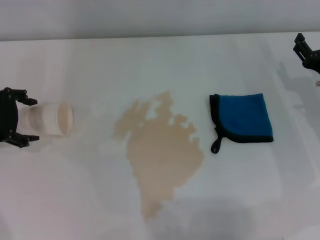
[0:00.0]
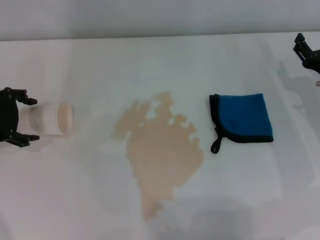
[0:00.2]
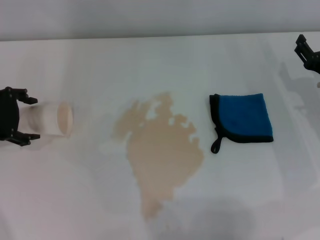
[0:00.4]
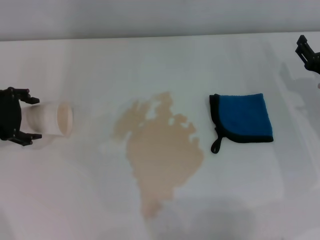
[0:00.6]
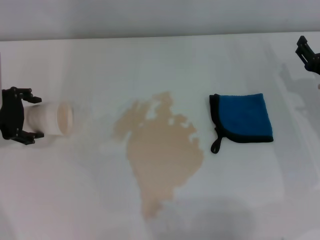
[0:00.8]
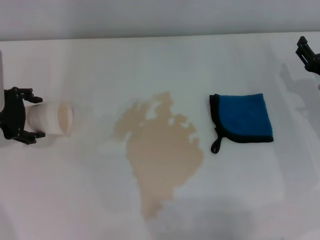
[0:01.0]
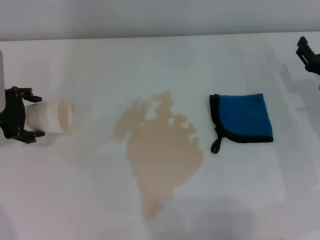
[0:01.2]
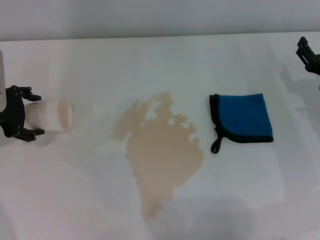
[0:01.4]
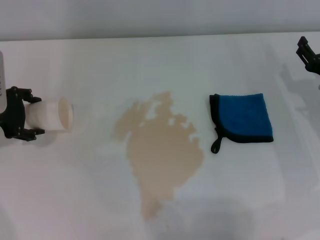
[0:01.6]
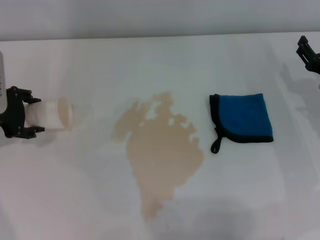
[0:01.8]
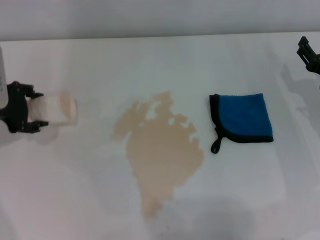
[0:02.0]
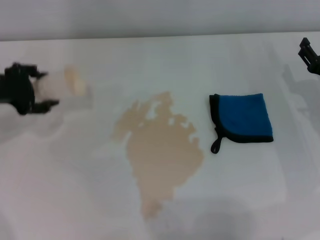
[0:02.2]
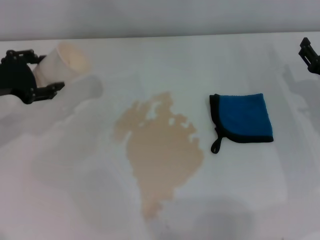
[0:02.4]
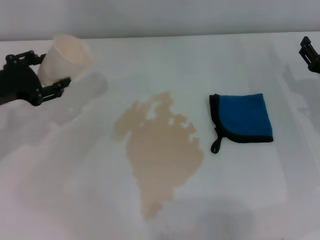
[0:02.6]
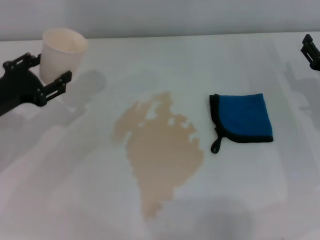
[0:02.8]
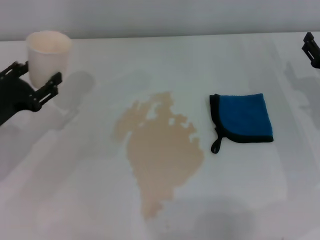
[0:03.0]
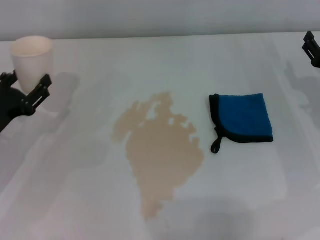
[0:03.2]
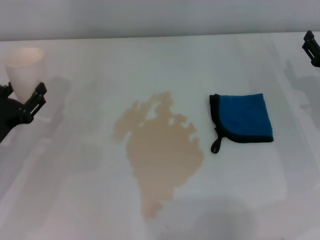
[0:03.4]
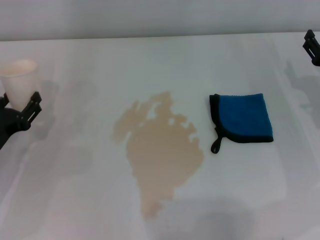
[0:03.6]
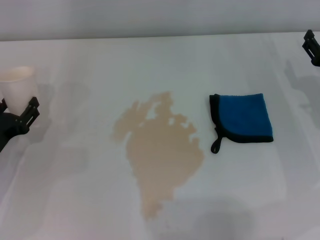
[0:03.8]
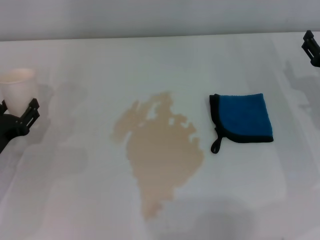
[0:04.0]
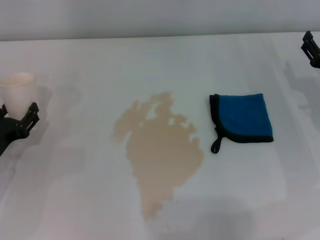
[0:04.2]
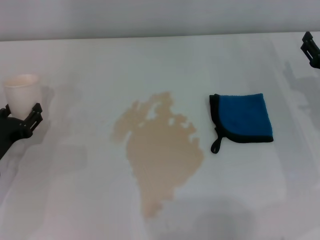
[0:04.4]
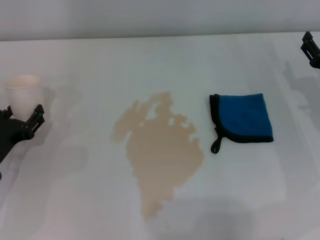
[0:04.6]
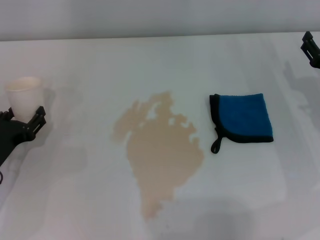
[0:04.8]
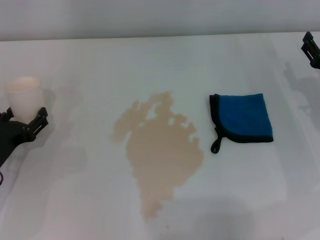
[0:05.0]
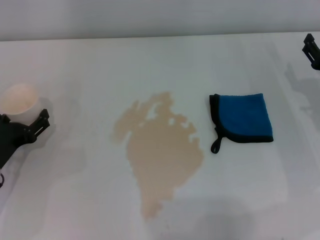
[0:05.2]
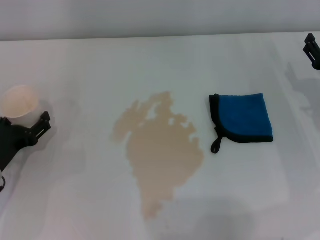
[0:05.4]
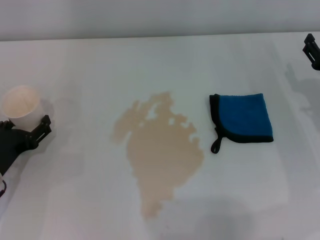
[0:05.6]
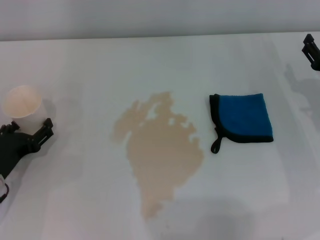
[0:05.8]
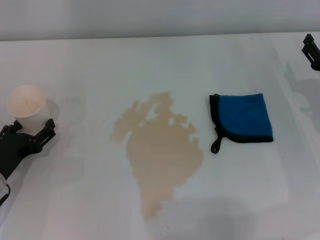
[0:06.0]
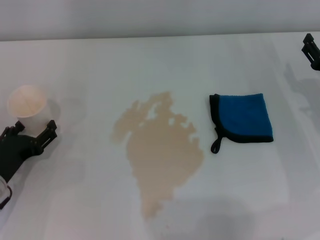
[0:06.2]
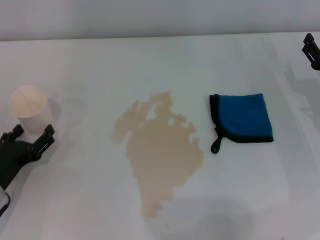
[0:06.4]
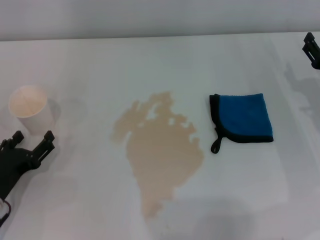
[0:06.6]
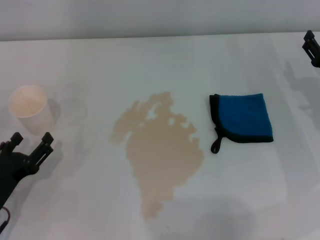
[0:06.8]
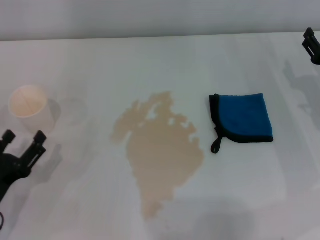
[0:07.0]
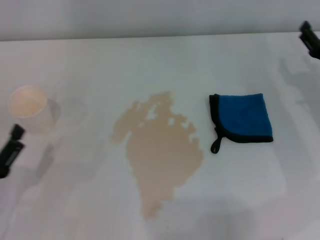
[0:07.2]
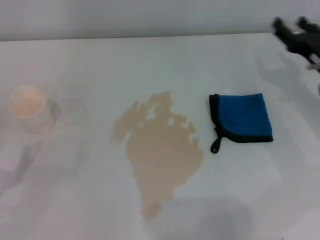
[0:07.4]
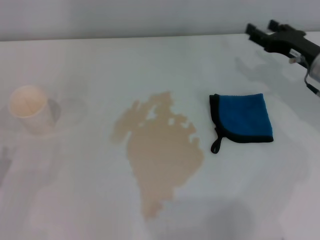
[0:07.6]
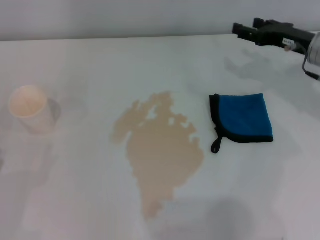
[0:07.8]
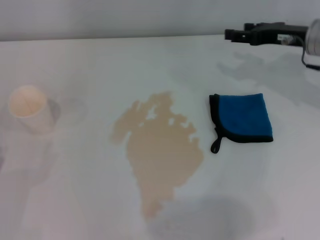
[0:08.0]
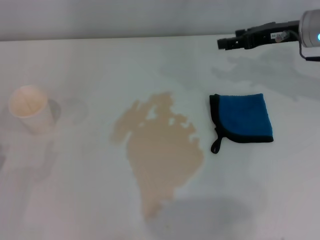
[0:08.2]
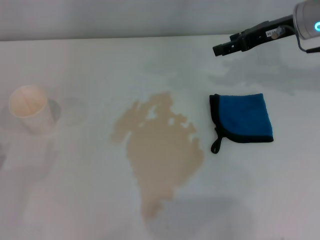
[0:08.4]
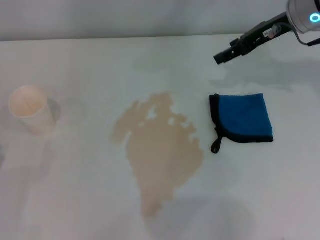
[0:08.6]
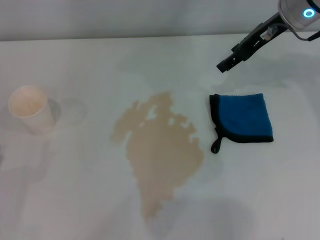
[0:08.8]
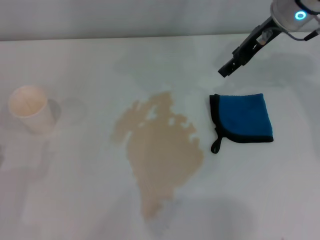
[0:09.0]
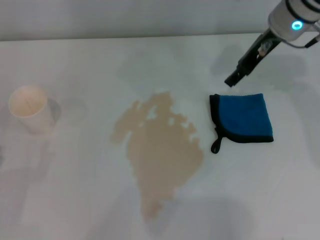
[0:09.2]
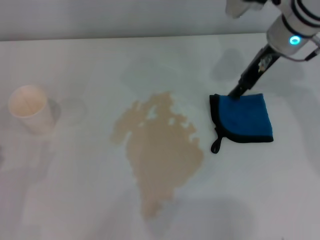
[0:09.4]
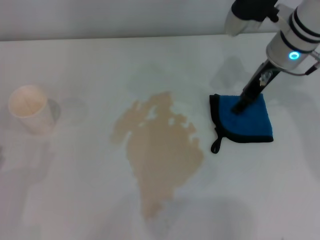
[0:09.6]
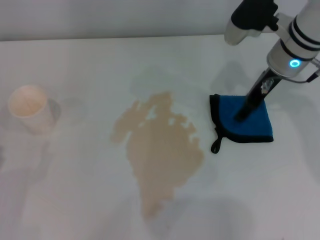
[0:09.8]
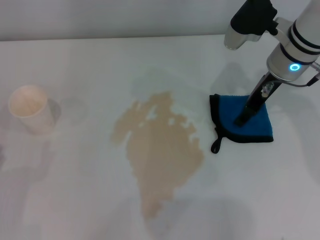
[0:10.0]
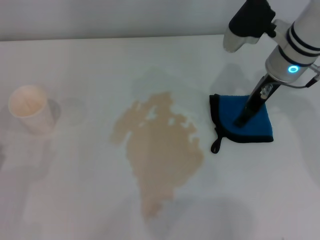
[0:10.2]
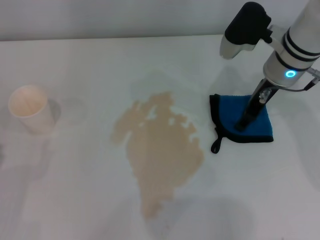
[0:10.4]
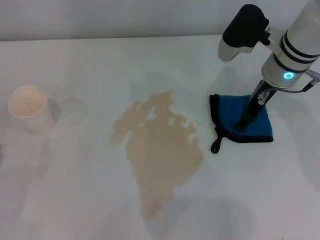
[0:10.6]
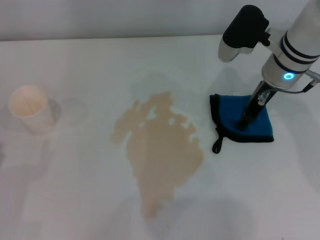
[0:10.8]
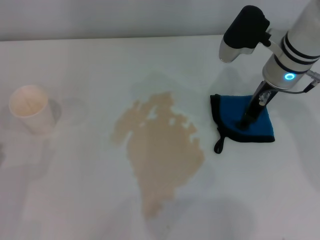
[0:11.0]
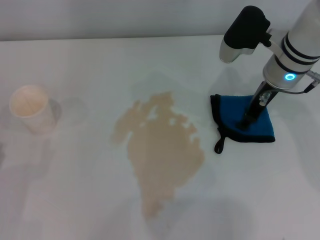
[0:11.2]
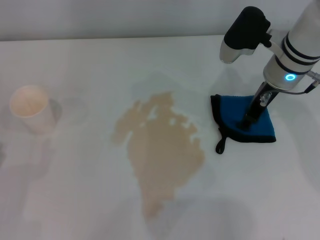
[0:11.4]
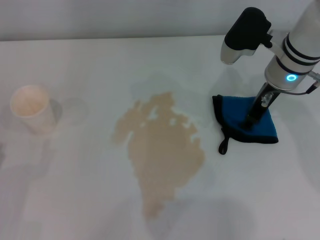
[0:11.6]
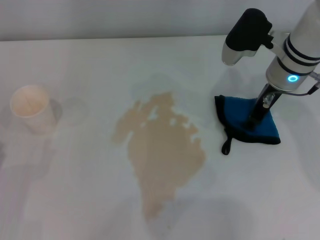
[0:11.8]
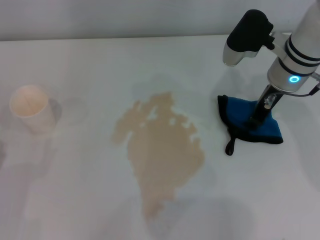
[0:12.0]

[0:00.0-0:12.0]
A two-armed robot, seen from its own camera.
Step, 0:01.8 to 0:05.4: Stand the paper cup upright with the left gripper.
0:00.0 to 0:01.6: There are only small adjustments of the grippers.
0:01.6 to 0:03.0: The left gripper heads backward and downward, covering approximately 10 cm, and closes.
0:03.0 to 0:04.4: The left gripper shifts some 5 cm downward.
0:04.4 to 0:06.0: The left gripper opens.
0:06.0 to 0:07.6: The right gripper heads forward, covering roughly 5 cm, while the left gripper is displaced backward and to the left by some 10 cm.
0:07.6 to 0:09.0: The right gripper moves upward, forward and to the left, some 15 cm.
0:09.0 to 0:10.4: The right gripper heads downward, covering about 5 cm.
0:10.4 to 0:12.0: The right gripper closes up.

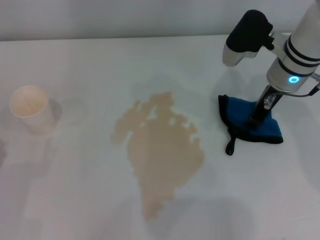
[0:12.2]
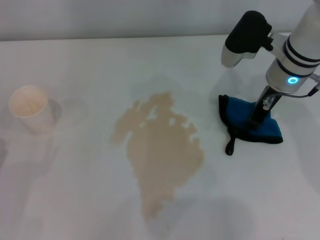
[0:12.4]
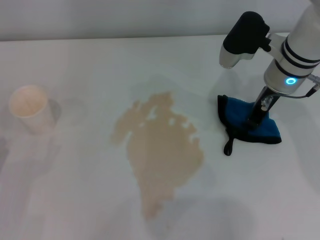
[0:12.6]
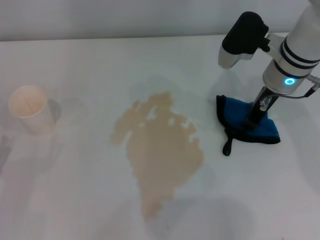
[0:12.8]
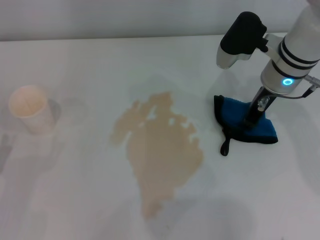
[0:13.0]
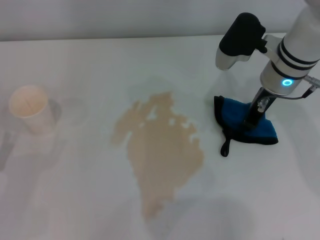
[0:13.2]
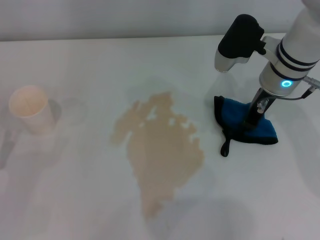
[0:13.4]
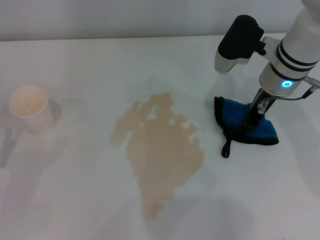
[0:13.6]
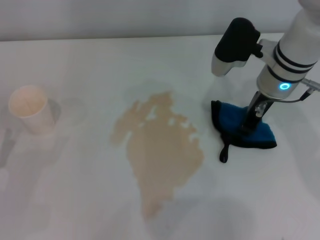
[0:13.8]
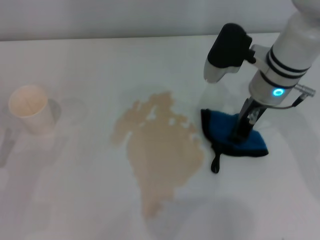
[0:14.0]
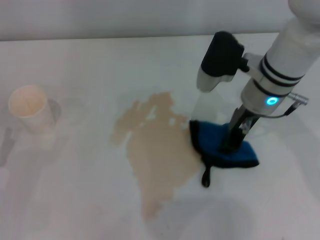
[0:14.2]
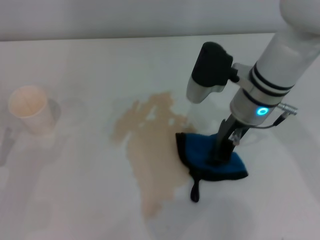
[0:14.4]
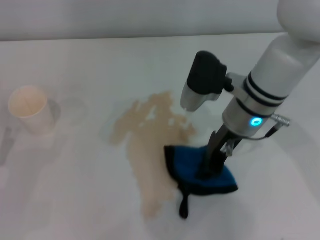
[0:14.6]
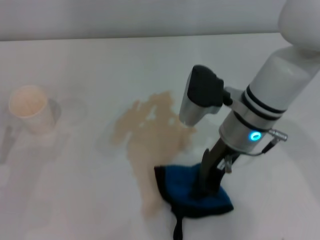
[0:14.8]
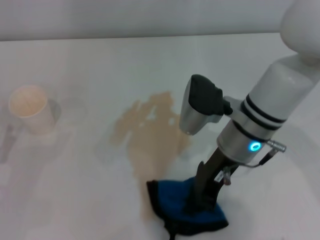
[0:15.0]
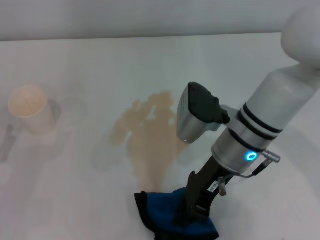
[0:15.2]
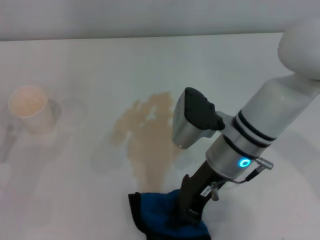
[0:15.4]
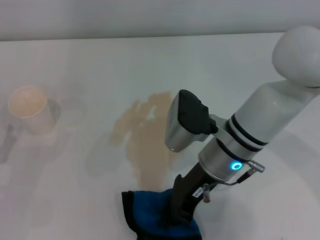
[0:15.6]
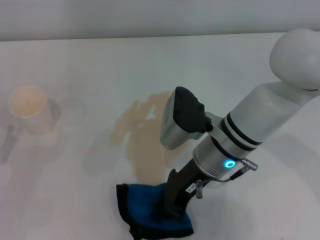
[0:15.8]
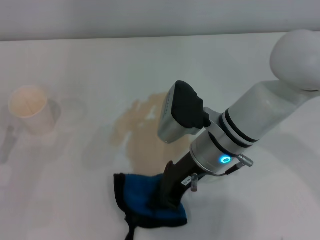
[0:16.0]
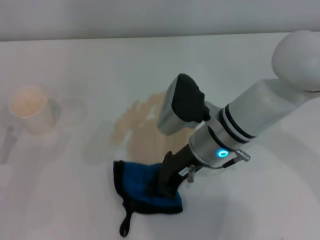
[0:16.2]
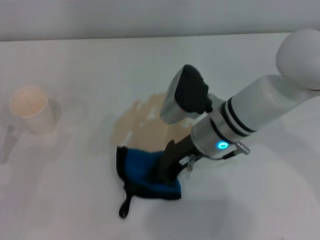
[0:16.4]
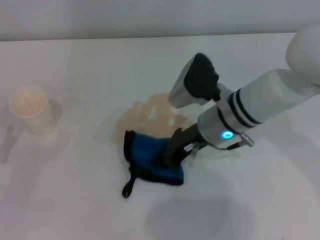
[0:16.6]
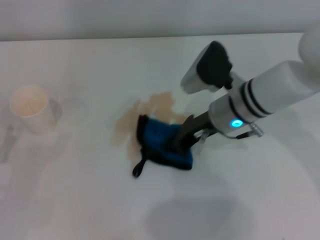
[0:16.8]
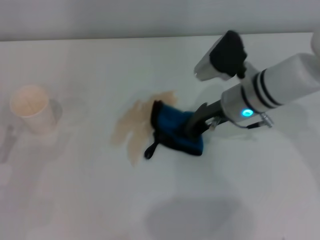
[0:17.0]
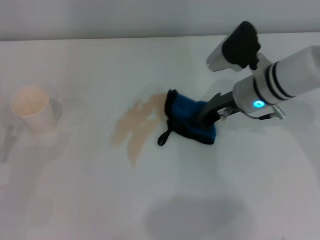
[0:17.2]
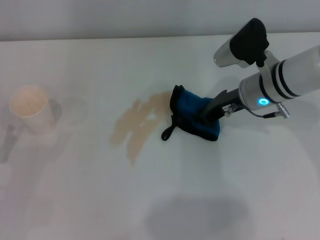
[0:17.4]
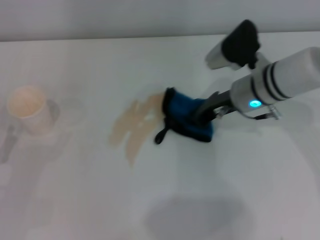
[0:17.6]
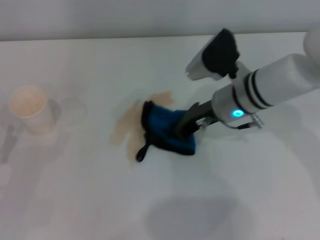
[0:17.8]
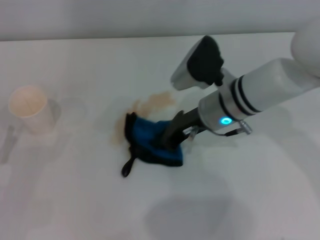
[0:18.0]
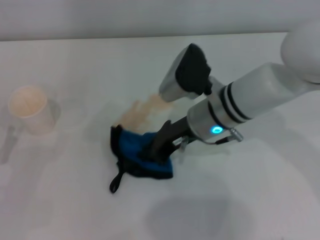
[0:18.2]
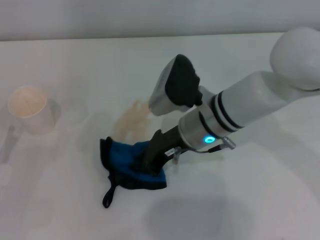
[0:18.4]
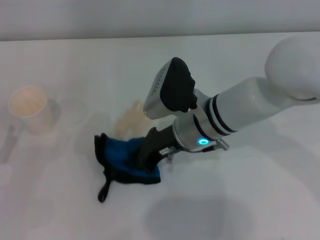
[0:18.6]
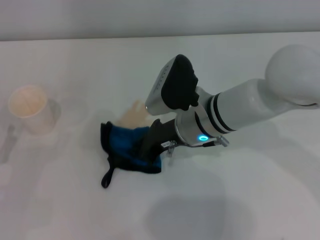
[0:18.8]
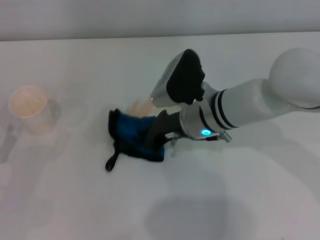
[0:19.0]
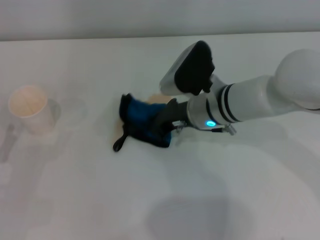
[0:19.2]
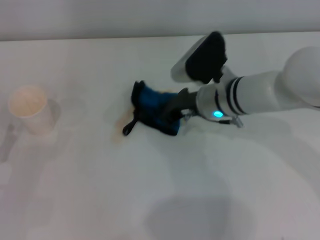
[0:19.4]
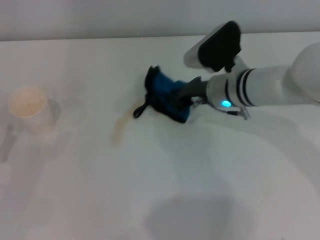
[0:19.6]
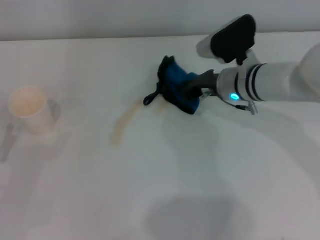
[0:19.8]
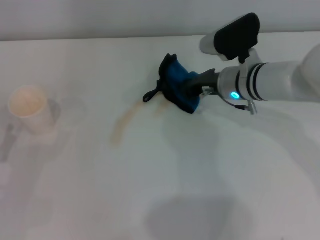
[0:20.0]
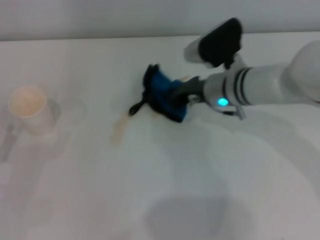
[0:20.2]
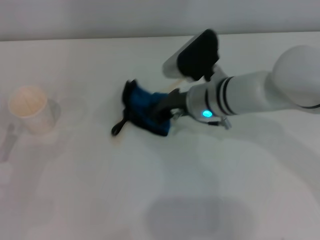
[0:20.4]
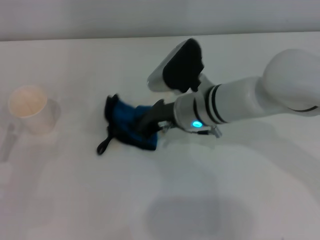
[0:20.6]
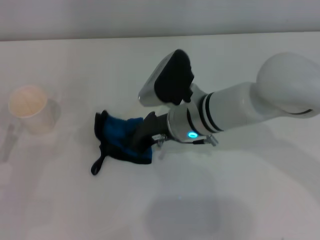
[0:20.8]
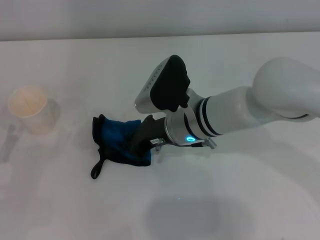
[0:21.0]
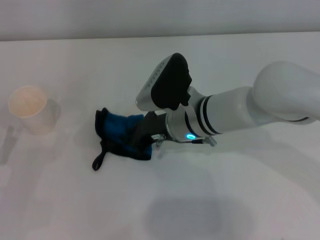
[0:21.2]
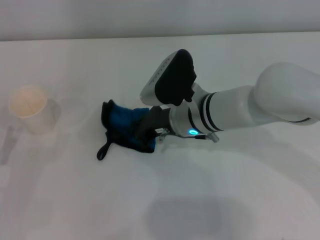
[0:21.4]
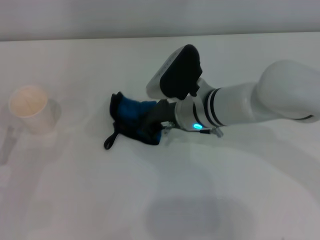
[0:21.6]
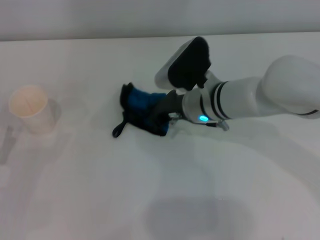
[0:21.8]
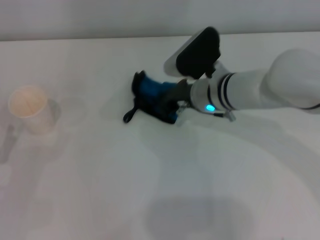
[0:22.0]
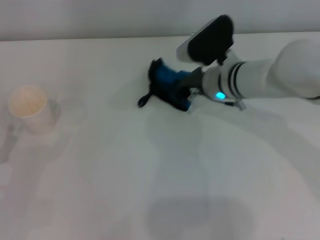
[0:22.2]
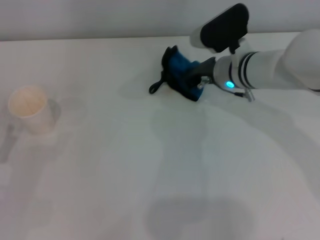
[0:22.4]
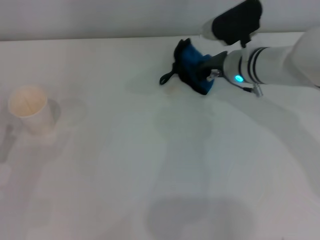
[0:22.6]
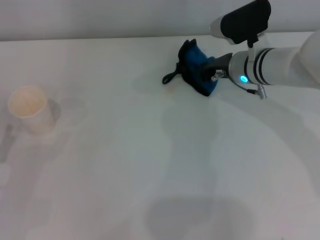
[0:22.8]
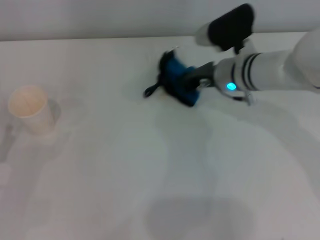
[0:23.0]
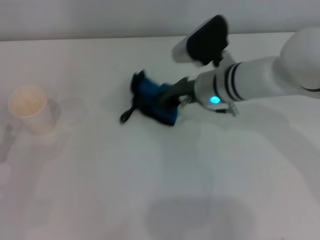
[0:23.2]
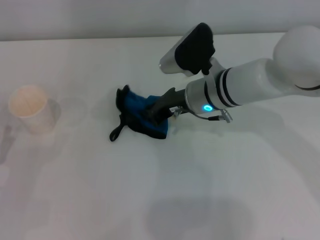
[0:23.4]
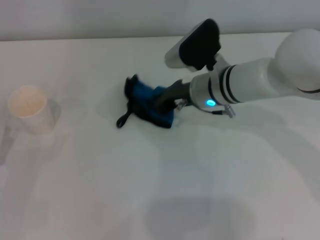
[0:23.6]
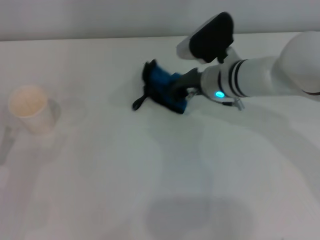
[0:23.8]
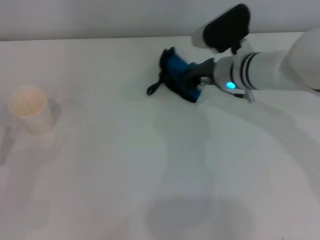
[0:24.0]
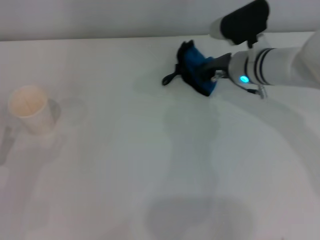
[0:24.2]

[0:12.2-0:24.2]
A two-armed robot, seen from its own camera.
0:12.2 to 0:13.8: There are only small adjustments of the grippers.
0:13.8 to 0:15.2: The right gripper travels backward and to the left by approximately 10 cm.
0:16.6 to 0:18.2: The right gripper moves some 5 cm to the right and comes back.
0:18.2 to 0:19.8: The right gripper heads to the right, covering roughly 5 cm.
0:19.8 to 0:21.2: The right gripper shifts about 10 cm to the left.
0:21.2 to 0:22.6: The right gripper shifts about 15 cm to the right and forward.
0:22.6 to 0:24.2: The right gripper goes to the left and returns, roughly 5 cm each way.
